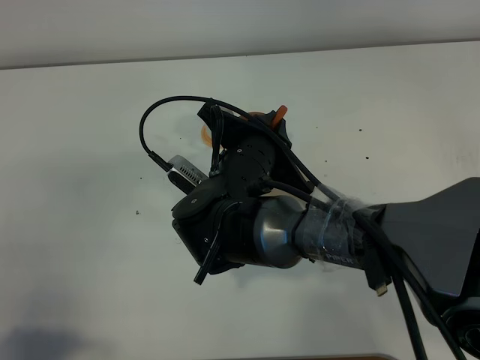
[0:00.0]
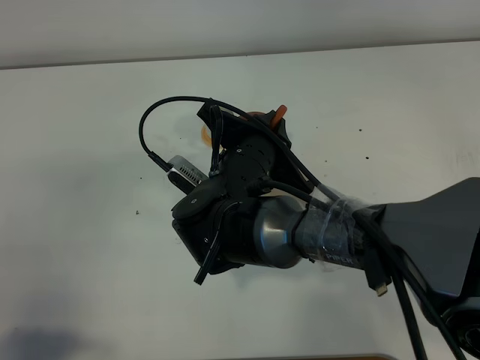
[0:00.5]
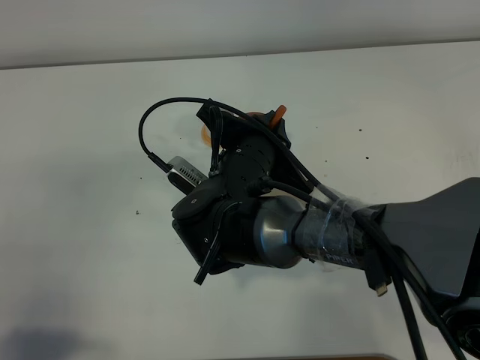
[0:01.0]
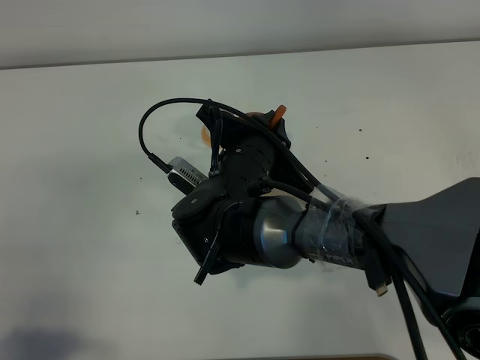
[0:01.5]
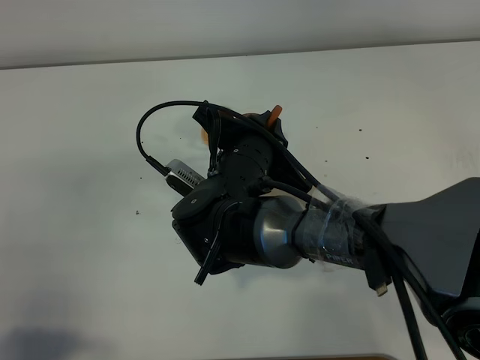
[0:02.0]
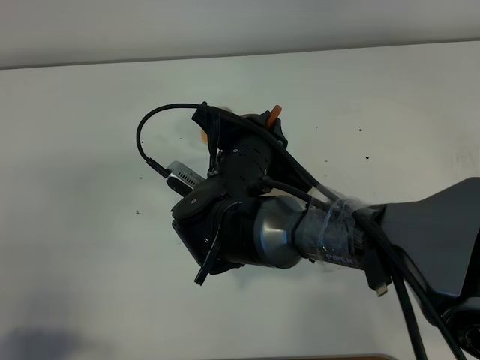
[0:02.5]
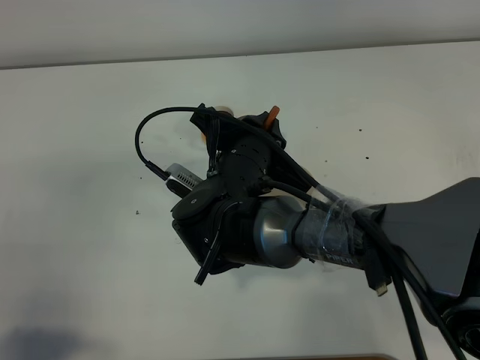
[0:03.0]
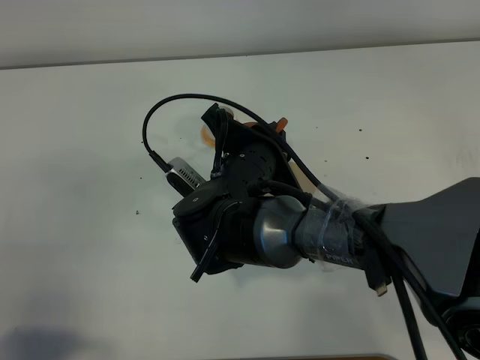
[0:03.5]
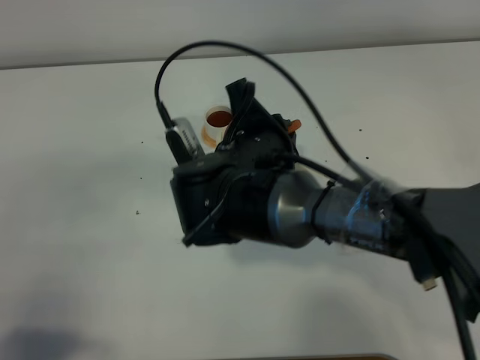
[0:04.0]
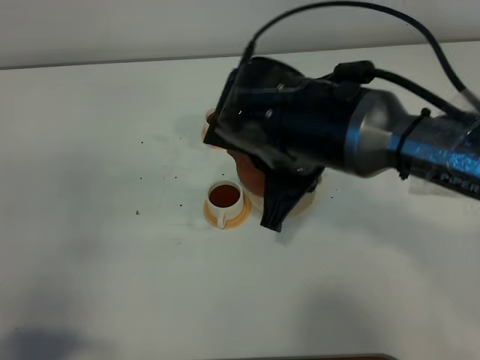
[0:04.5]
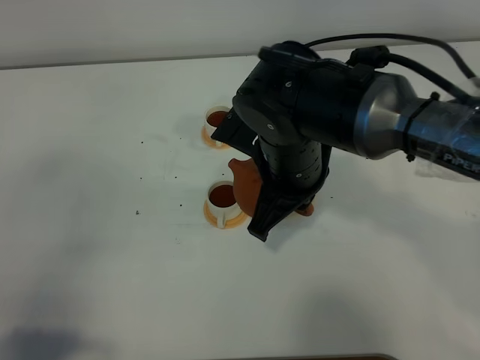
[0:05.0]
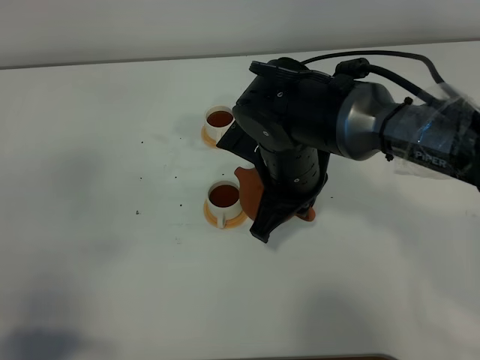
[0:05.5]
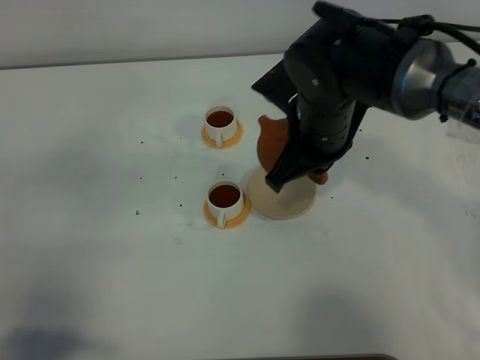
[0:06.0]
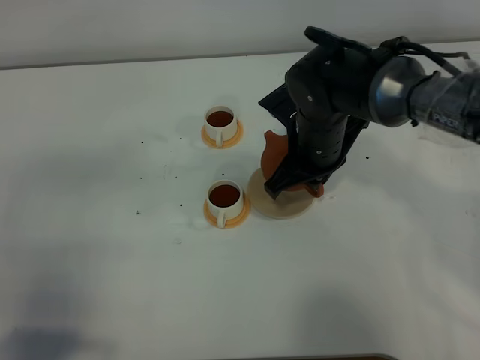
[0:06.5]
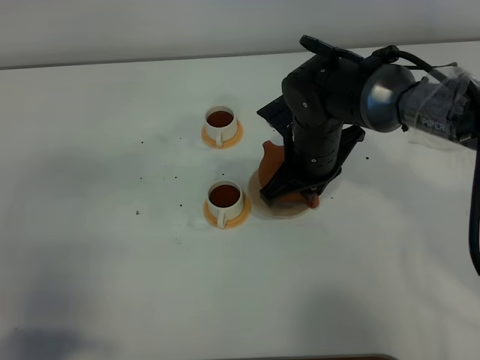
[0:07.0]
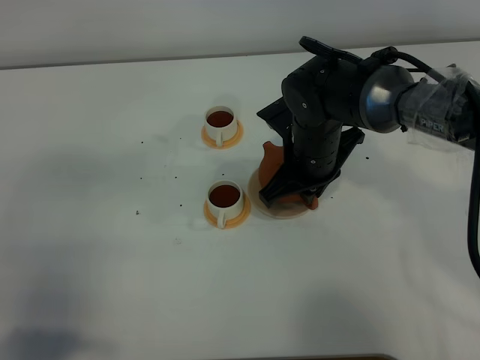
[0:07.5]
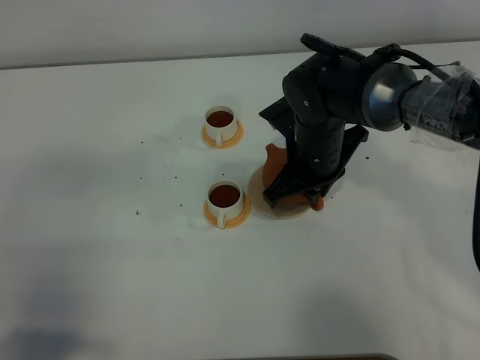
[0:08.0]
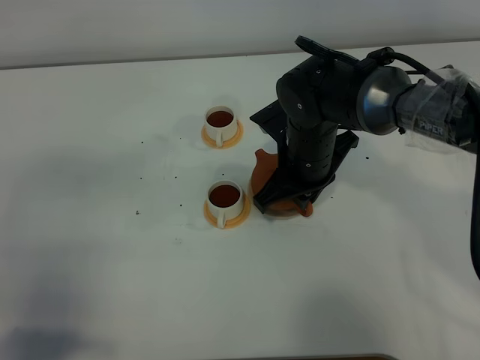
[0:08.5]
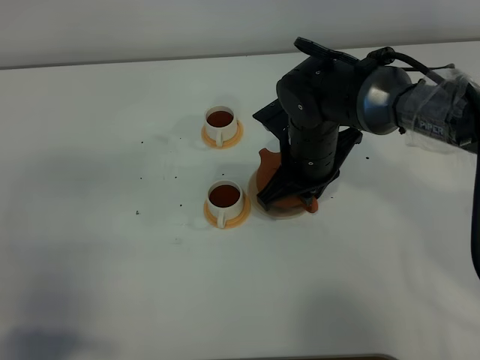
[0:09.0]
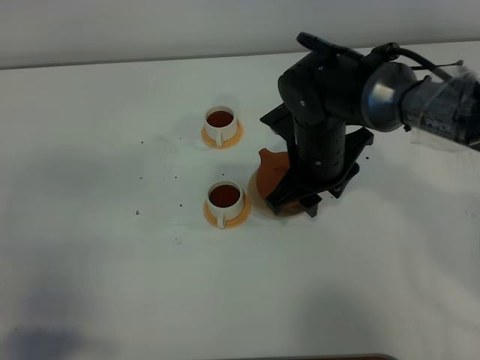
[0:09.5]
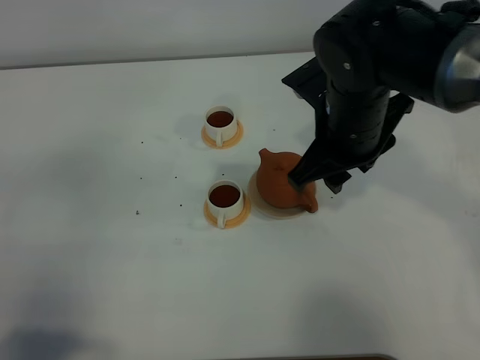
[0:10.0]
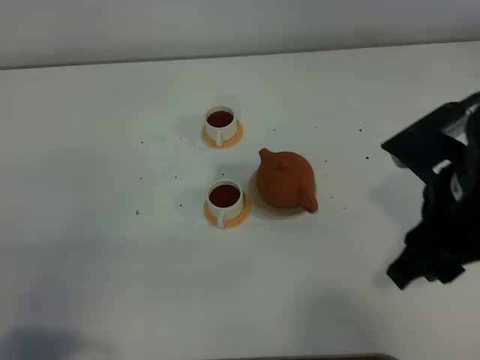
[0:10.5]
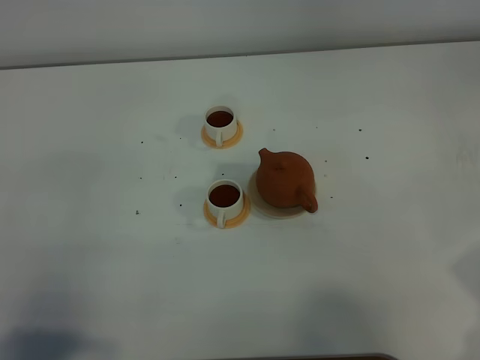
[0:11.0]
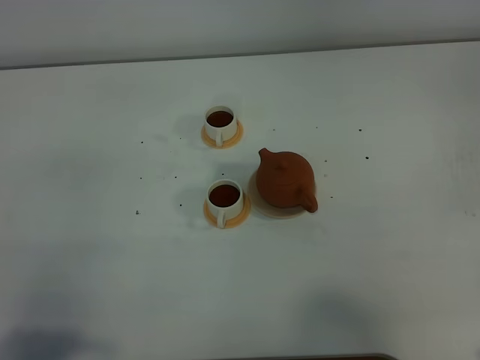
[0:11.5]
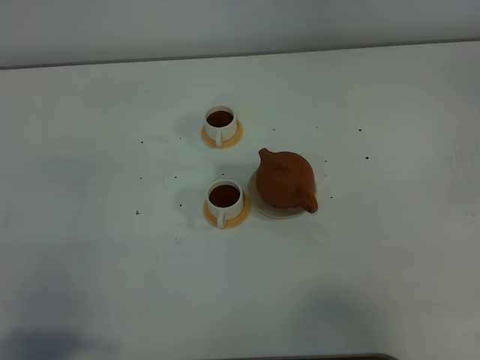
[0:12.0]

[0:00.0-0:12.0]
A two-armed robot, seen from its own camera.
Task of the whole recording: grasp the brown teapot and pour the tea into the two white teacups one by one, put the brown teapot back in its original place.
Step, 0:00.0 to 0:04.0: Pour tea into the teacup with the right gripper.
0:00.0 to 0:02.0: Both grippers stay about where they are.
0:04.0 to 0:06.0: The right gripper heads to the right and forward, covering roughly 10 cm.
0:06.0 to 0:08.0: The right gripper heads downward, covering roughly 5 cm.
0:08.0 to 0:10.0: The right gripper moves upward, about 10 cm, and opens.
0:10.0 to 0:12.0: The right gripper heads backward and to the right, covering about 30 cm.
